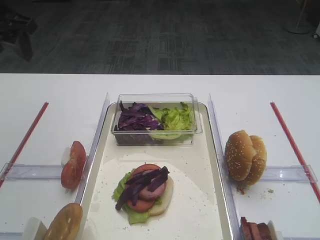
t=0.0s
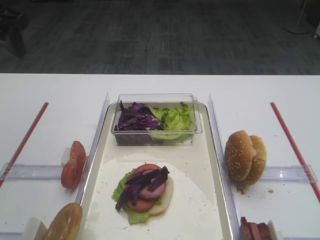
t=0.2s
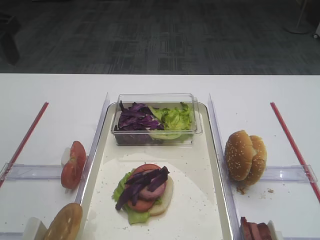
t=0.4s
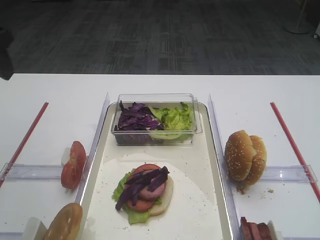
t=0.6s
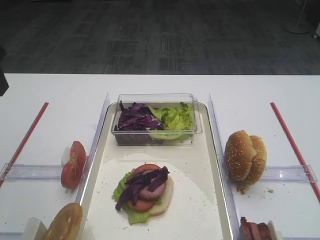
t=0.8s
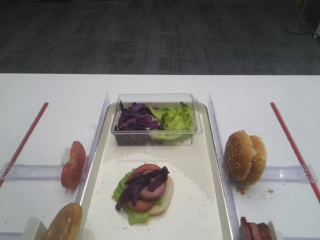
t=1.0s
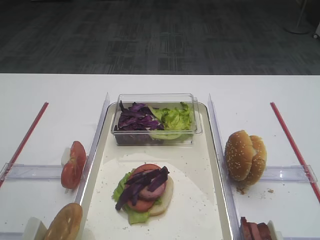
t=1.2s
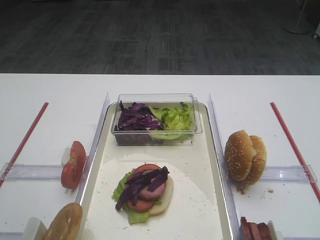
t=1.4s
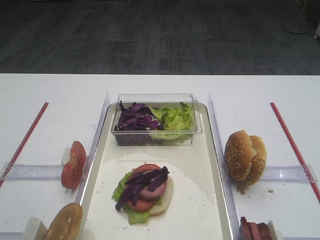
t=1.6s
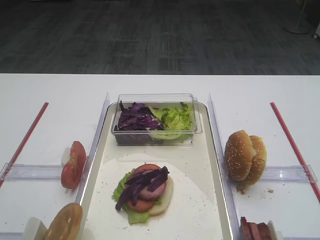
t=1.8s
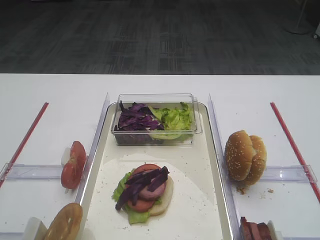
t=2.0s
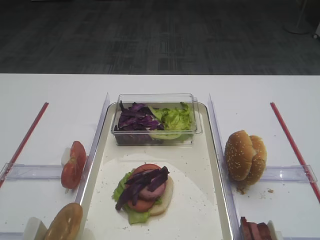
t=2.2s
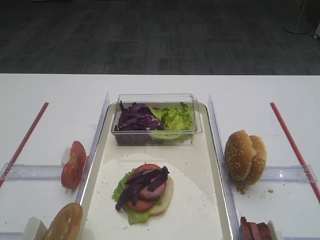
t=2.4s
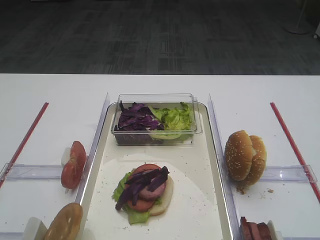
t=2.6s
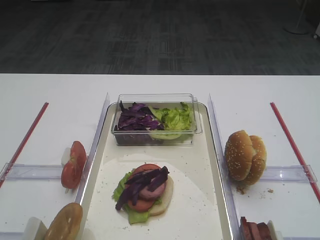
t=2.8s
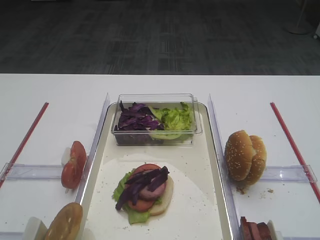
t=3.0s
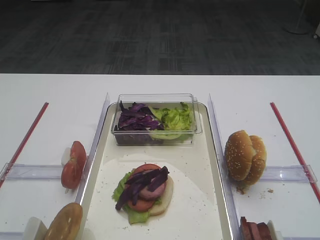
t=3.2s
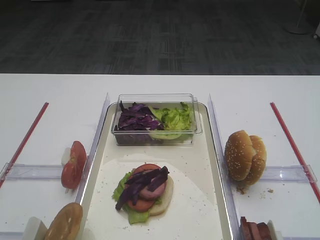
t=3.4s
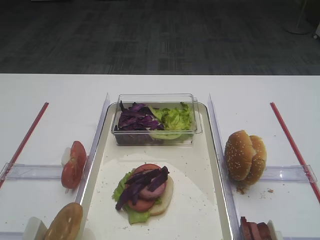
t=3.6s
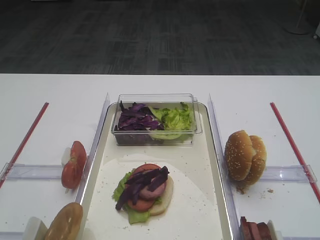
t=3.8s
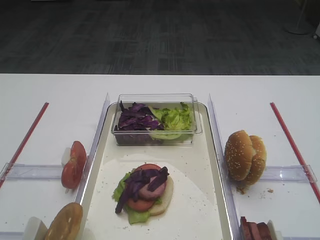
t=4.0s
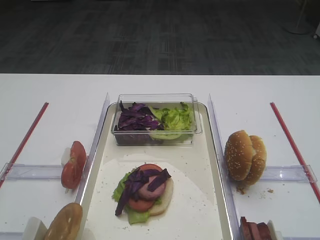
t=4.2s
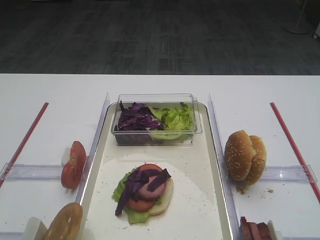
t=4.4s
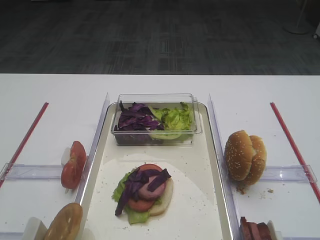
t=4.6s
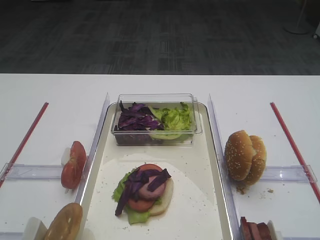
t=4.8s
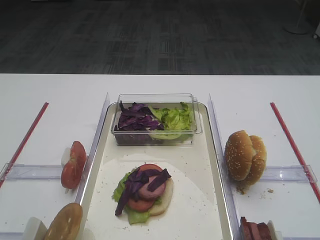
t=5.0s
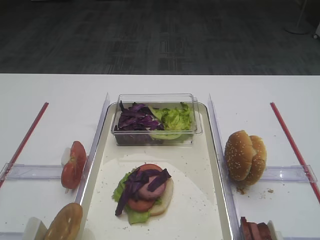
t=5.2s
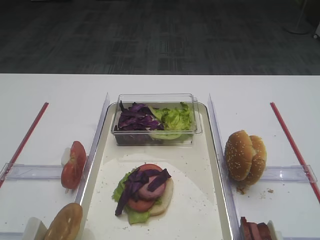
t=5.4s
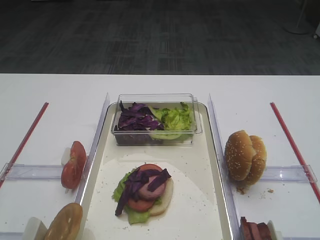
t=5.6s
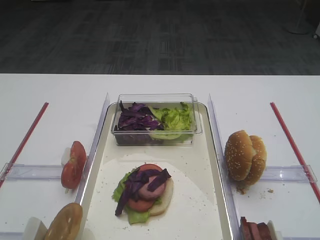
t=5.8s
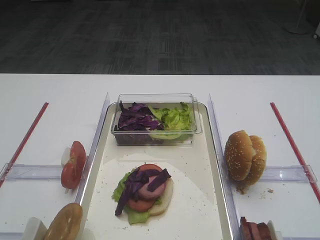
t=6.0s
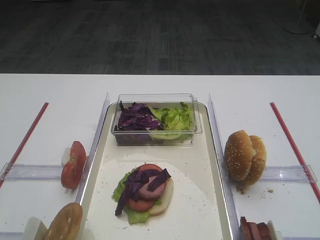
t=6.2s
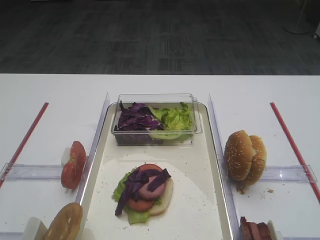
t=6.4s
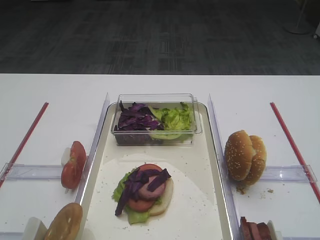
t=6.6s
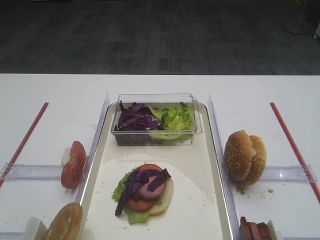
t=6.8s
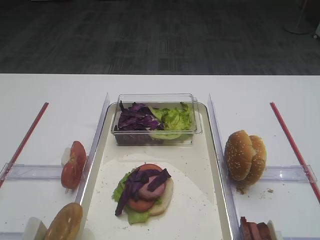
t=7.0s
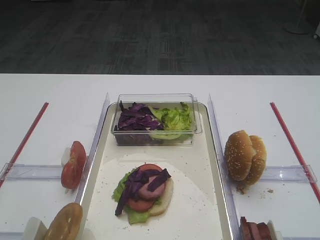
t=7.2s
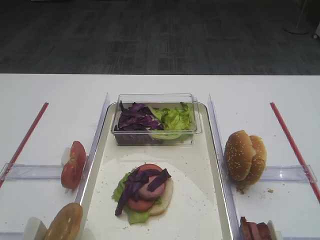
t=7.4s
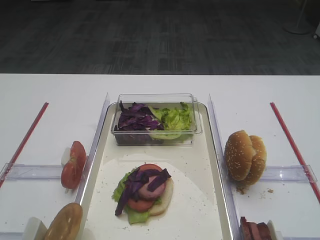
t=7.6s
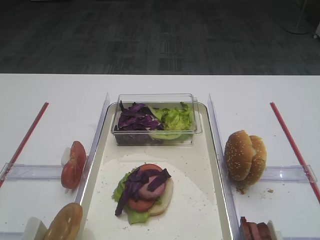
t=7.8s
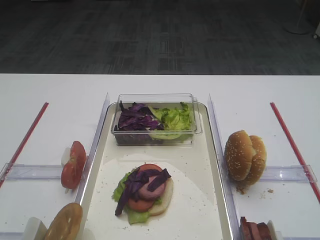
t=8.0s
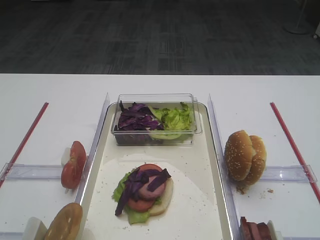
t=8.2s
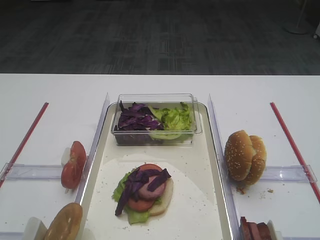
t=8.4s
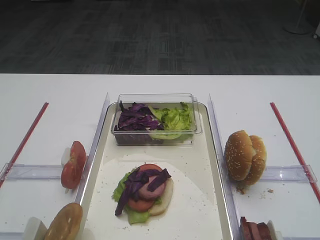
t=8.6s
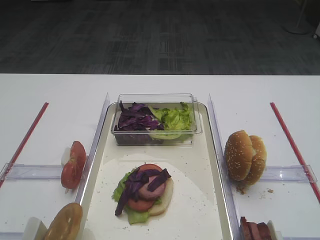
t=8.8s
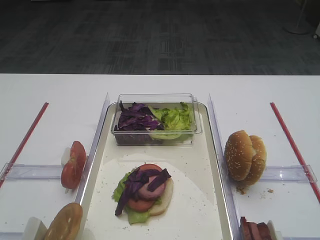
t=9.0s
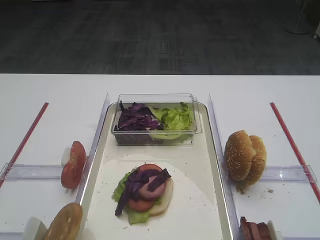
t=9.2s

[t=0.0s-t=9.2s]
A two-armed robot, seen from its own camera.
t=4.6s to t=9.2s: Both grippers stay about where they are.

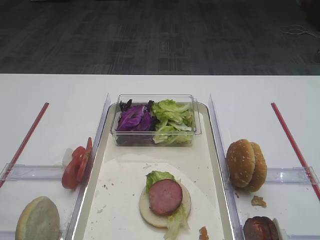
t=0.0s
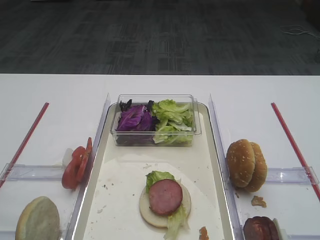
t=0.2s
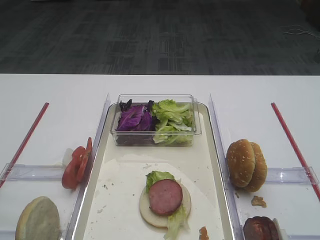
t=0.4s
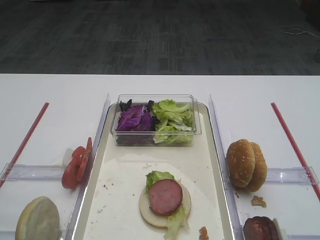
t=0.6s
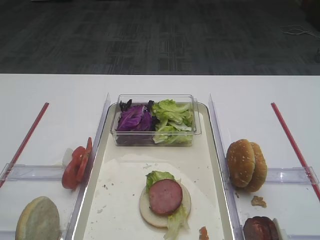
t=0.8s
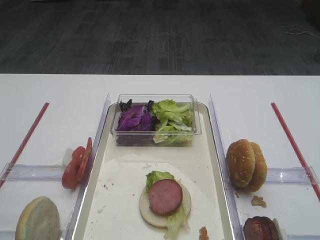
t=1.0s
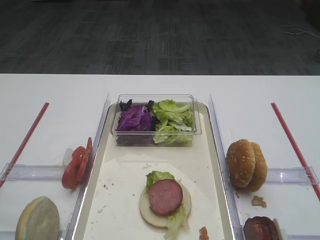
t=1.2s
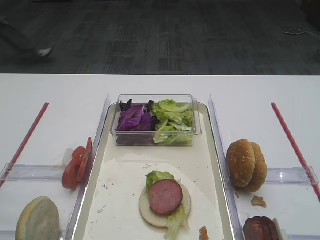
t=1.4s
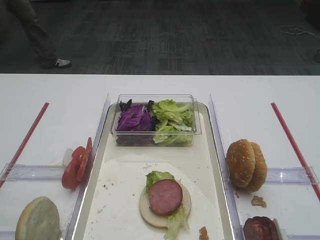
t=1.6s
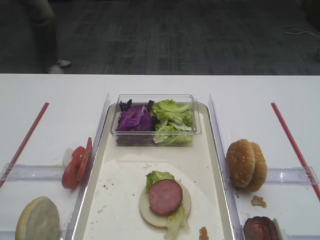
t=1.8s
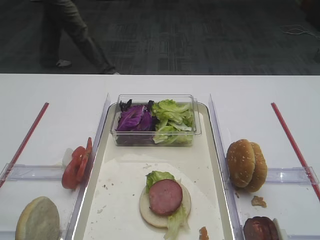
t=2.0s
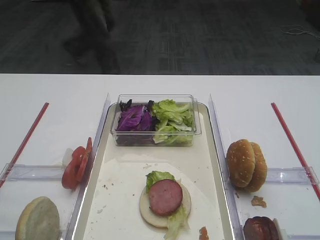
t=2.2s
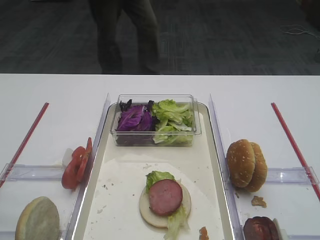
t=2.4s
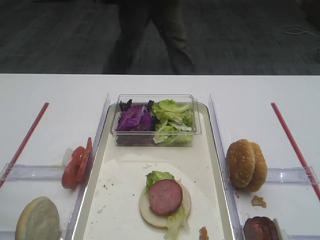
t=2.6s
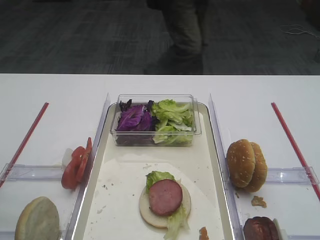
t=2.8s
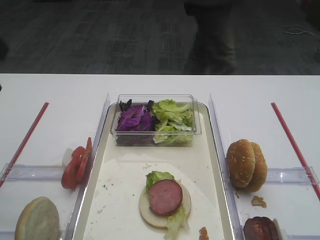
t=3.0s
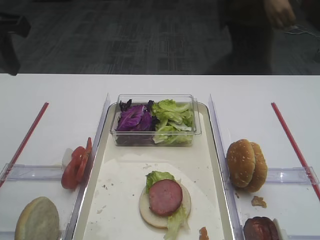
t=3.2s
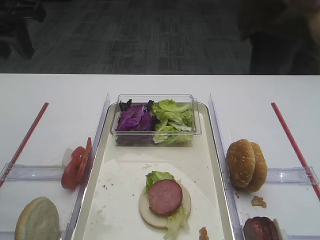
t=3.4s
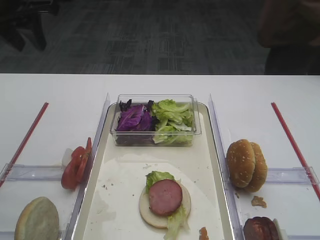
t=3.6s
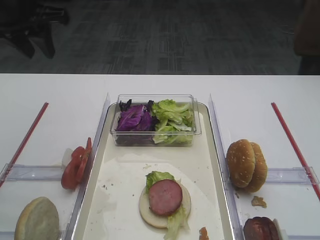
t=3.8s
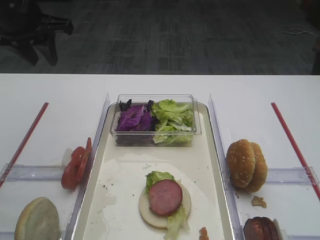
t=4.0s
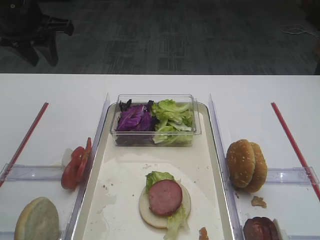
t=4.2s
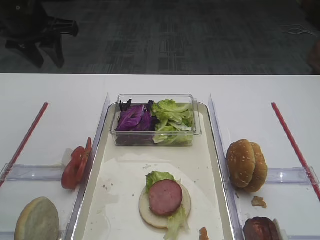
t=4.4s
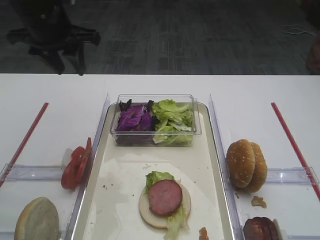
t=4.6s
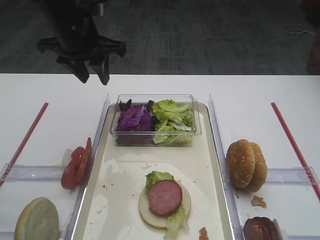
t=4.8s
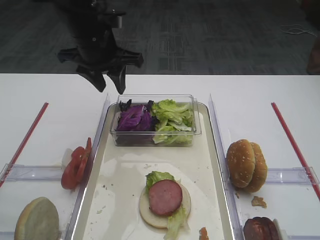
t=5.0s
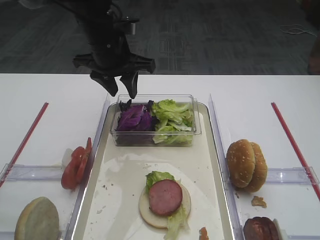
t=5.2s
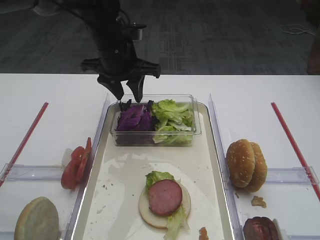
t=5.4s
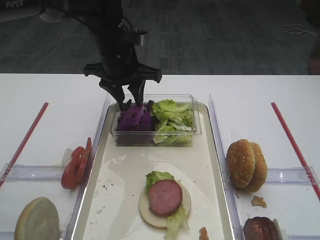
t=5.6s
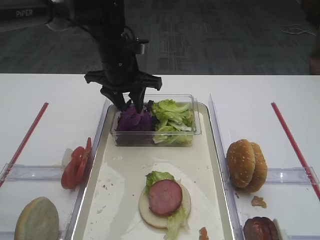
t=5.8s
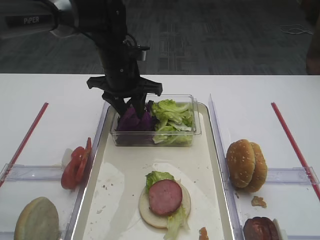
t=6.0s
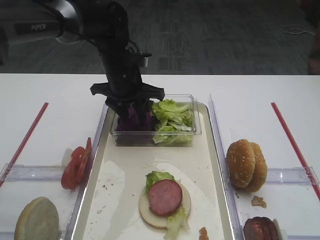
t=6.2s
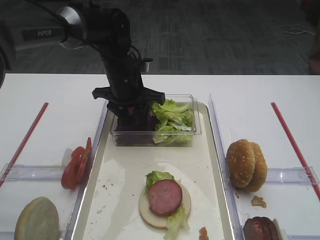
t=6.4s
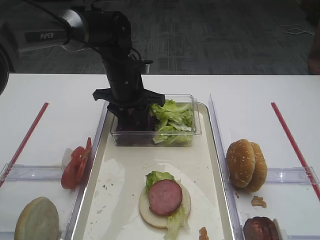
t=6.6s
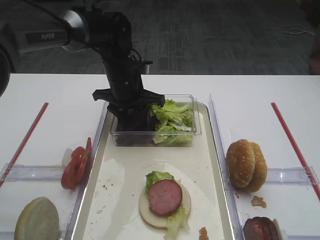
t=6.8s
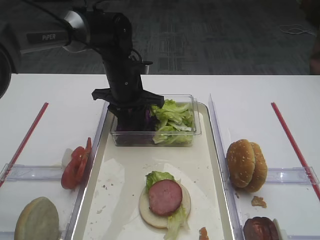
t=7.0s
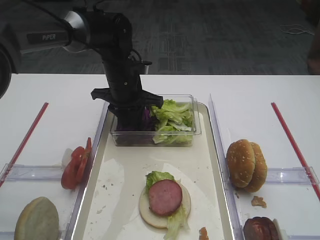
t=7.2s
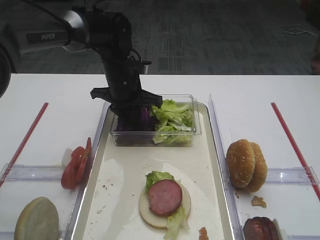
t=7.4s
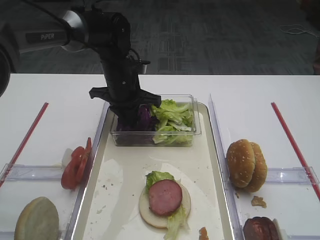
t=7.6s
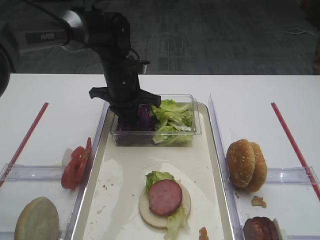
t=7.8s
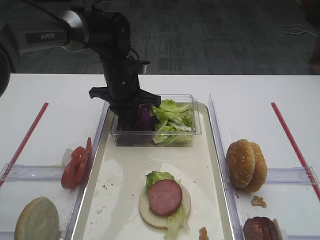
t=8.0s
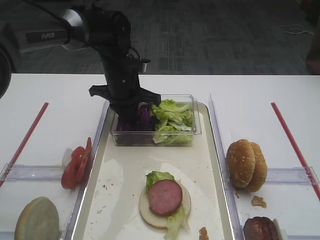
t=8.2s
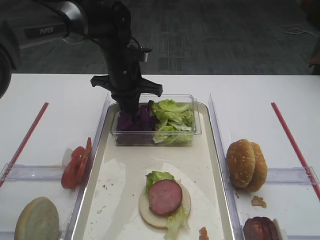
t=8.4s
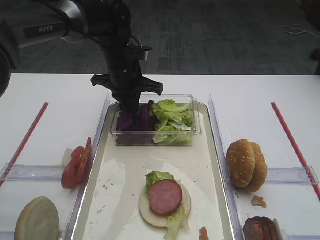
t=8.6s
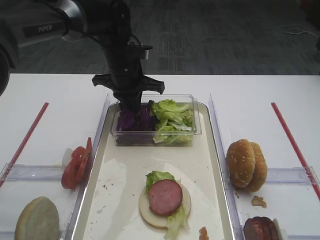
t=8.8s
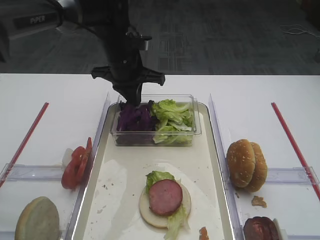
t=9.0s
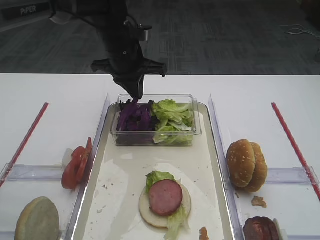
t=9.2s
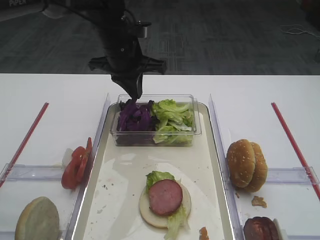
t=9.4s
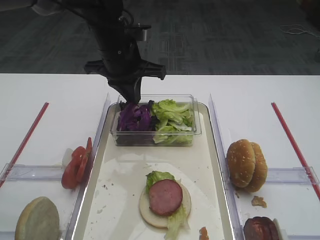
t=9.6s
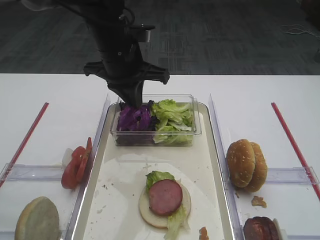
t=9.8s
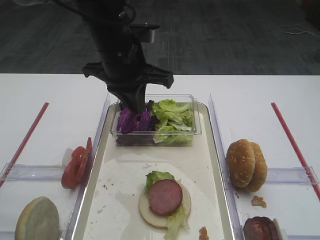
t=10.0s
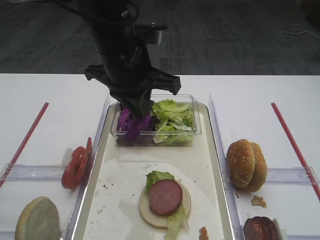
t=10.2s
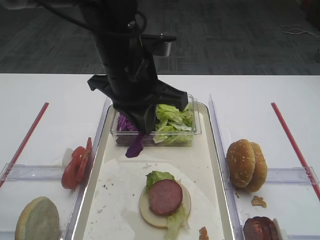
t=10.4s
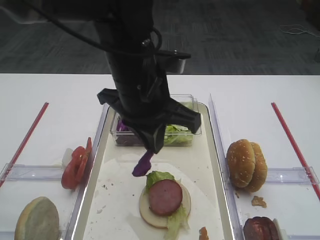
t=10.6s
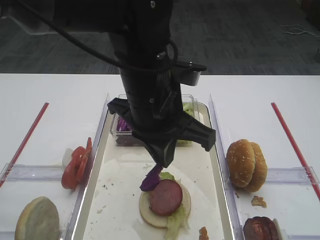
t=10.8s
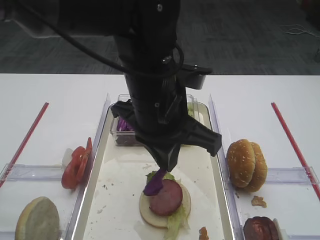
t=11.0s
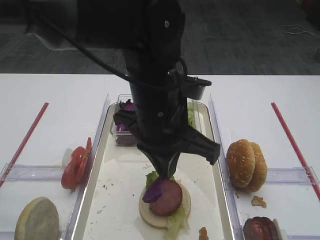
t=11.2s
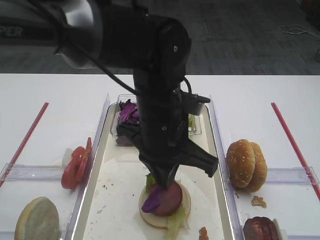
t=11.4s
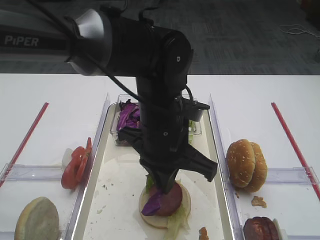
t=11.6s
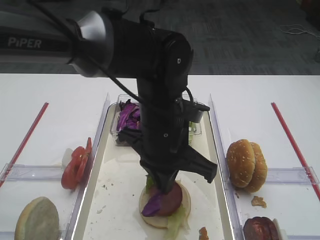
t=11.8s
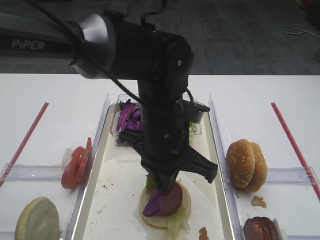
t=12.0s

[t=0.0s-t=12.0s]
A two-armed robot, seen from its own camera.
Step, t=0.0s to t=9.0s: Pick up the purple cabbage with the left gripper.
t=1.6s to t=3.0s: The left gripper shifts roughly 25 cm forward.
t=3.0s to t=4.4s: The left gripper heads forward, covering approximately 15 cm.
t=4.4s to t=6.0s: The left gripper moves to the right and downward, approximately 20 cm.
t=6.0s to t=7.6s: The left gripper closes up.
t=7.6s to t=9.0s: The grippers move only a little.
t=9.0s to t=10.4s: The left gripper heads backward and upward, covering about 15 cm.
t=10.4s to t=12.0s: The left gripper travels downward and to the right by some 10 cm.

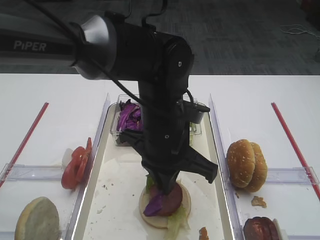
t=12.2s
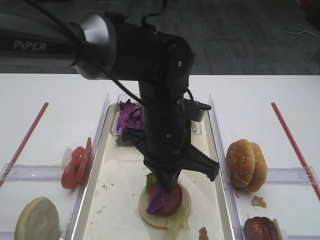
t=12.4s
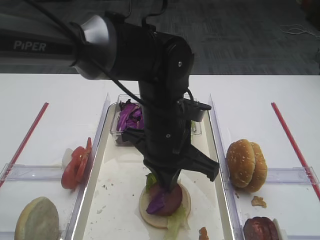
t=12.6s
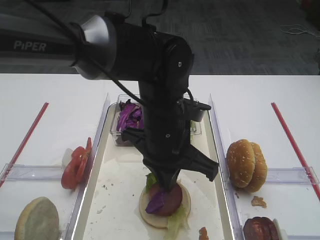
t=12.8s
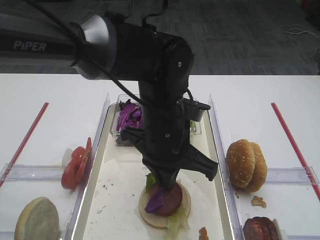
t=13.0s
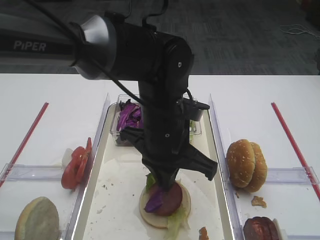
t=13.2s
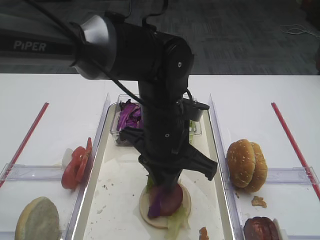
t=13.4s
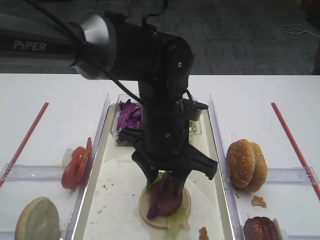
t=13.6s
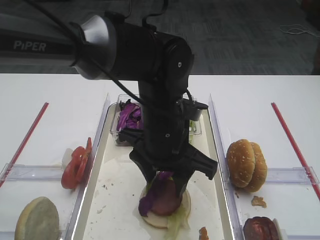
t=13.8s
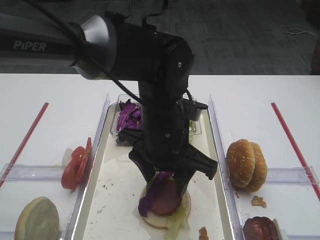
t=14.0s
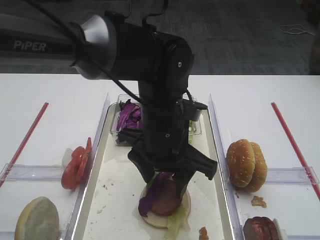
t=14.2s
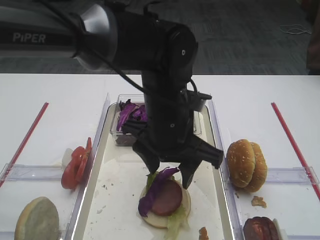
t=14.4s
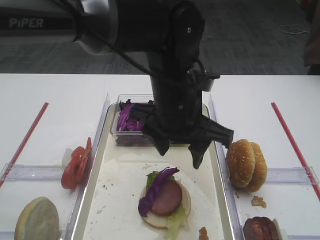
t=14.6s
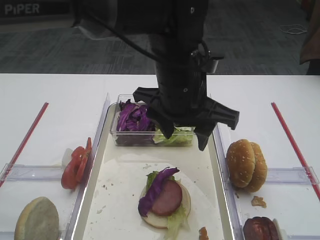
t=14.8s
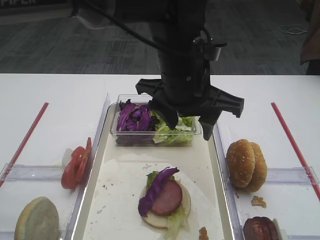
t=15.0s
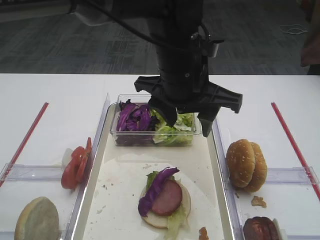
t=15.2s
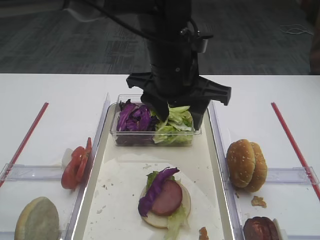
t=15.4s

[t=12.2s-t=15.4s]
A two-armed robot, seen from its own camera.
Step, t=12.2s to t=14.6s: Place the purple cabbage on the cutlet with the left gripper.
t=12.2s to t=13.8s: The left gripper opens up.
t=13.8s to t=15.4s: The left gripper is displaced upward by some 10 cm.
